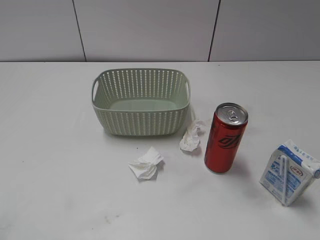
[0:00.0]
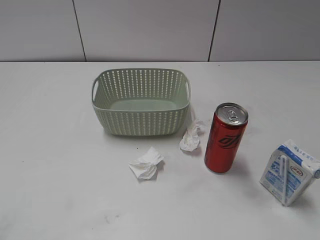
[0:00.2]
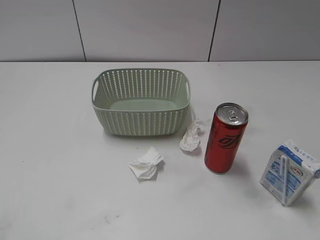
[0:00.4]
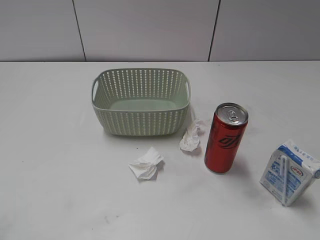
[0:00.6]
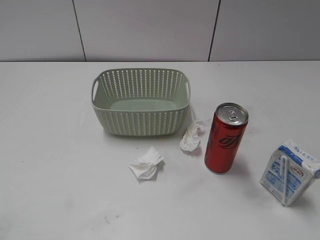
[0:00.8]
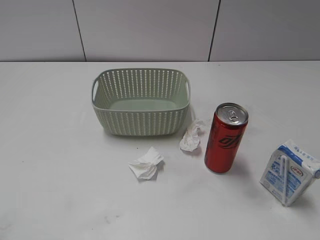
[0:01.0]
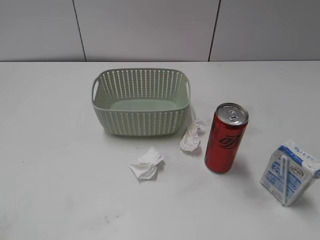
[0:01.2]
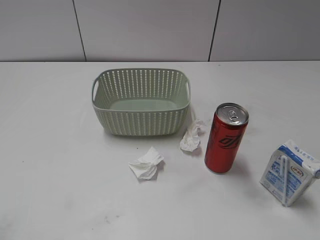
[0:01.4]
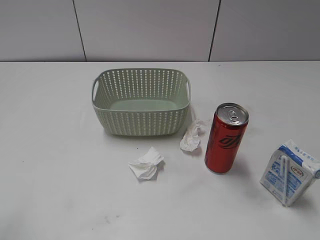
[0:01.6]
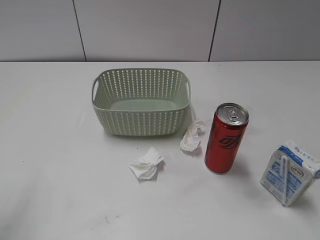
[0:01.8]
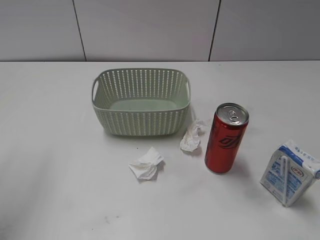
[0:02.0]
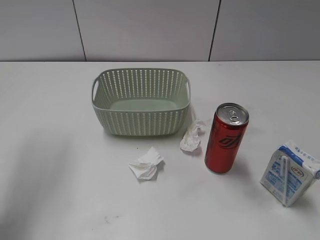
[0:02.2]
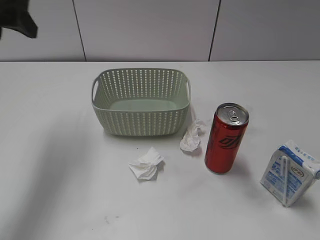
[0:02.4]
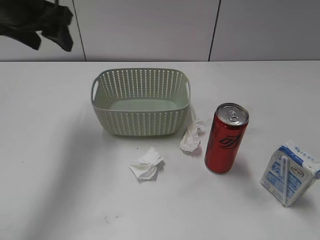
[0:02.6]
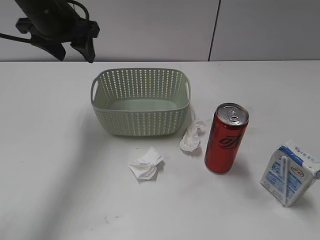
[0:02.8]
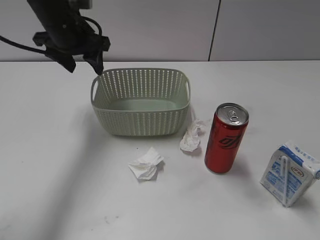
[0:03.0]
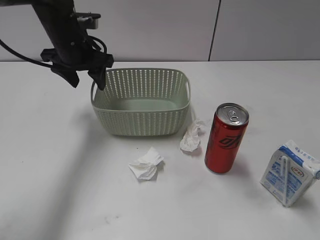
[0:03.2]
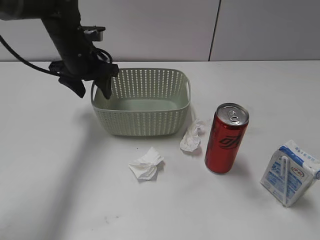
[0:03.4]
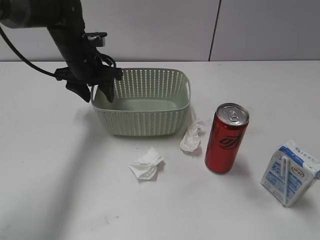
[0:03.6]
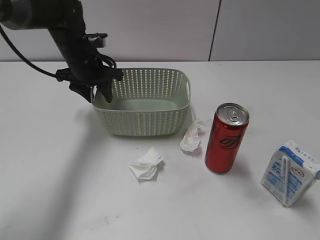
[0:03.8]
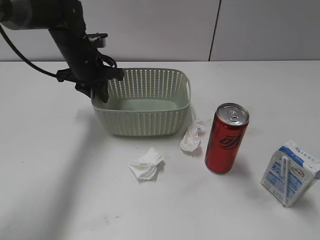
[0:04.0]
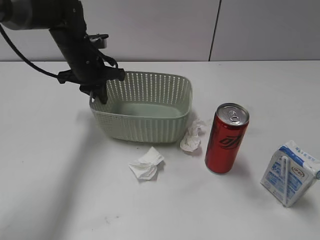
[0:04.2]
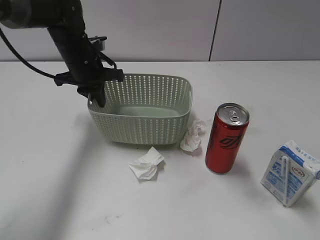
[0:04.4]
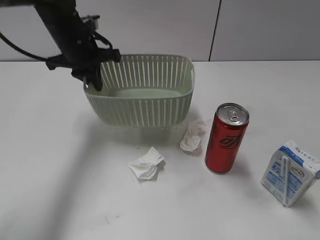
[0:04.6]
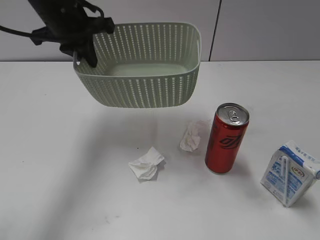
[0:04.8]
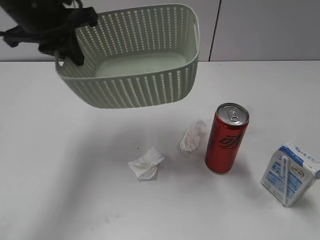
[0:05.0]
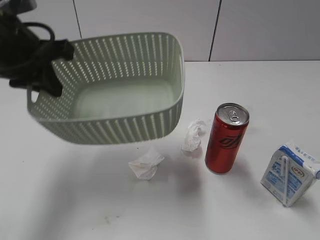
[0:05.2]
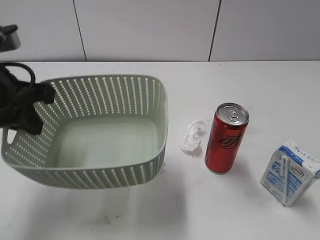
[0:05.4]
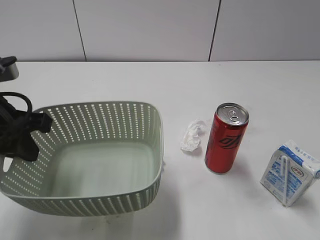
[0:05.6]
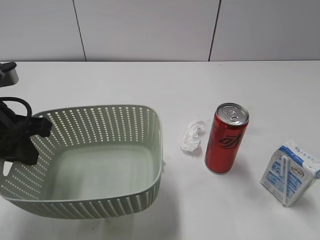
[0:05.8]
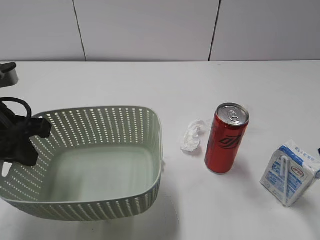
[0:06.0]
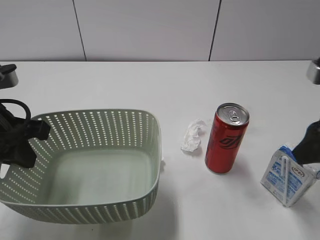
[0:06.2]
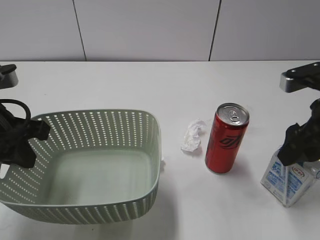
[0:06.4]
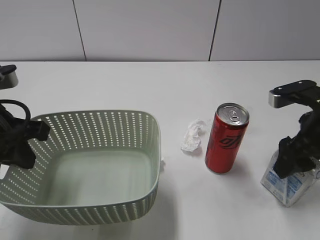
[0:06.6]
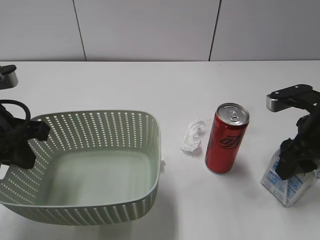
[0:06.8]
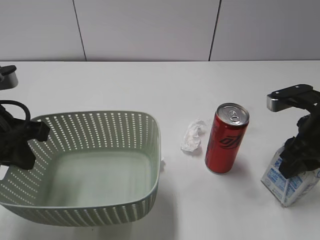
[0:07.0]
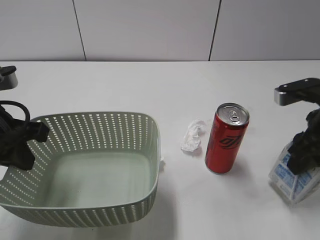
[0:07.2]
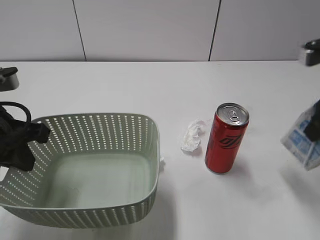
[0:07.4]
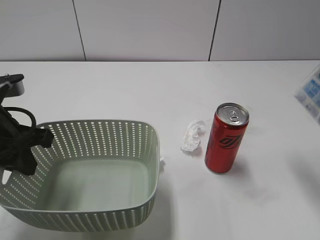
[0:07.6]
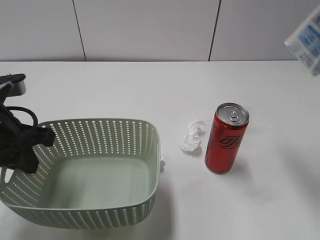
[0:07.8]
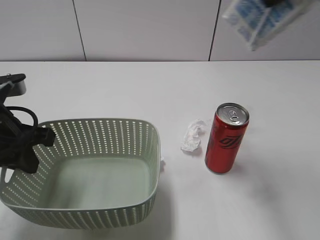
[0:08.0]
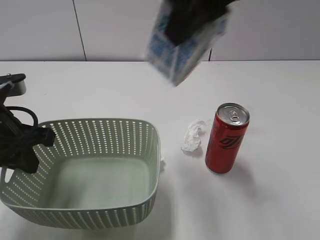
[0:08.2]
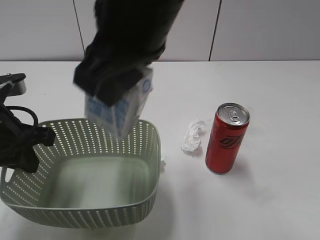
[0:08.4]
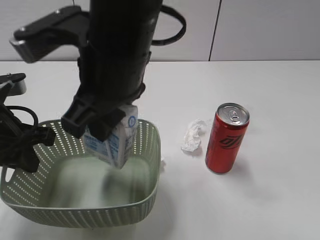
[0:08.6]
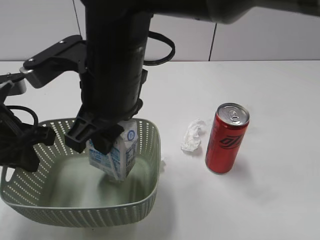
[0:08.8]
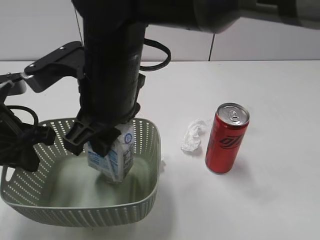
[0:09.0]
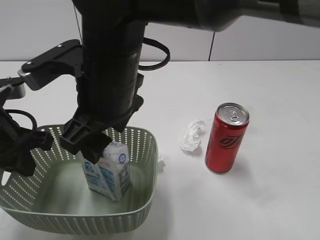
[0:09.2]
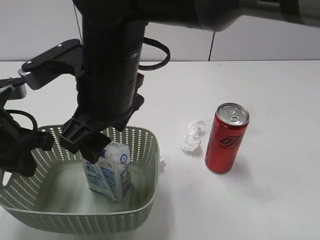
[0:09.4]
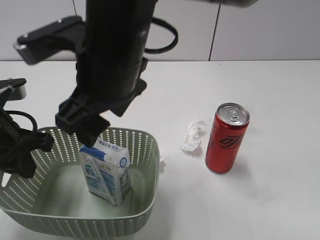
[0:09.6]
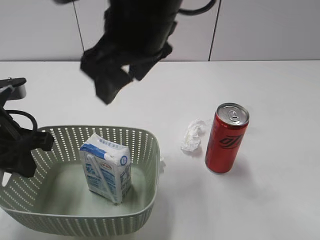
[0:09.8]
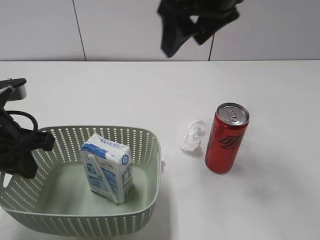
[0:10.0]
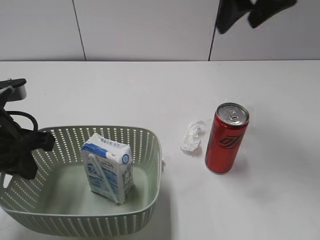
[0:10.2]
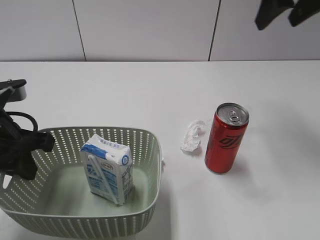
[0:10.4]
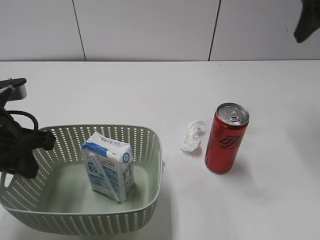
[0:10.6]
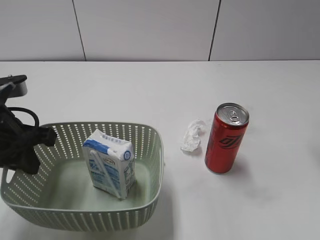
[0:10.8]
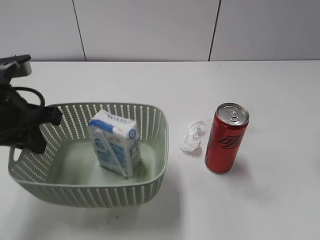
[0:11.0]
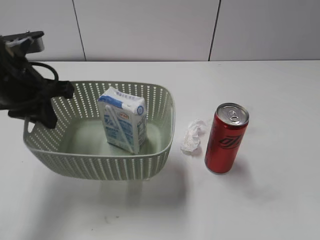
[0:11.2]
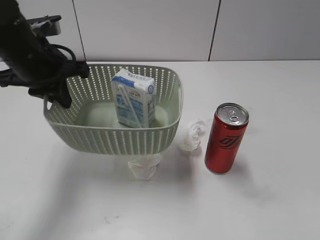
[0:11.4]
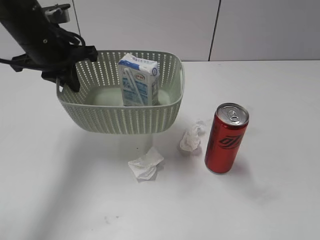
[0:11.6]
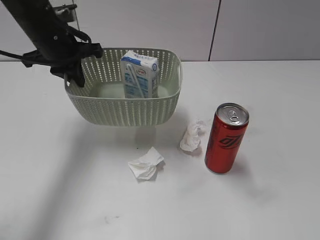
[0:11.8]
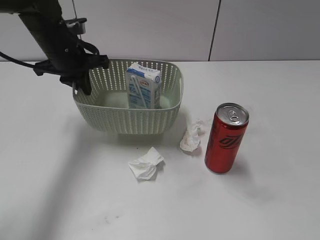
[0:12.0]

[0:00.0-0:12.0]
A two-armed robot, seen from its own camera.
Step, 0:02.4 to 0:04.0: Grasp the basket with left gripper.
Step, 0:04.2 to 0:05.8: Lift the basket with left gripper.
Step, 0:06.0 to 0:06.8: Grasp the milk with right gripper.
Step, 0:07.0 to 0:09.6: Place the milk in the basket with right gripper.
0:01.6 to 0:03.0: The left gripper moves forward, to the right and downward, some 35 cm.
0:03.0 to 0:04.4: The left gripper is displaced downward by about 5 cm, and closes.
0:04.4 to 0:06.0: The left gripper shifts roughly 20 cm backward. The right gripper moves forward, some 15 cm.
0:06.0 to 0:07.6: The right gripper is displaced upward and forward by roughly 10 cm, and closes.
0:07.6 to 0:09.0: The right gripper is displaced to the left by about 30 cm.
0:09.0 to 0:10.4: The right gripper goes approximately 30 cm to the right and forward, and opens its fingers.
0:10.4 to 0:12.0: The right gripper is displaced backward by about 35 cm. Meanwhile the left gripper shifts approximately 20 cm forward.

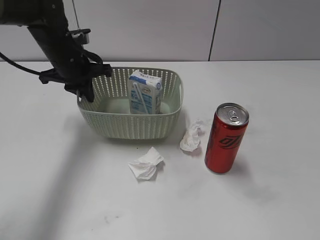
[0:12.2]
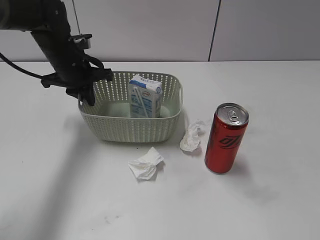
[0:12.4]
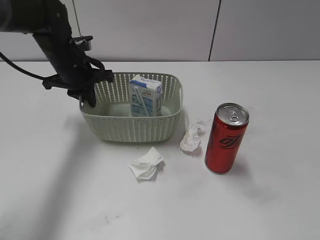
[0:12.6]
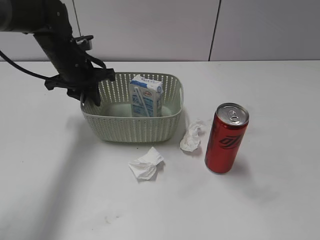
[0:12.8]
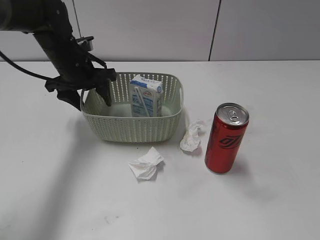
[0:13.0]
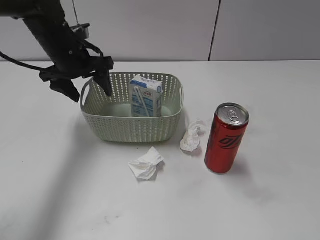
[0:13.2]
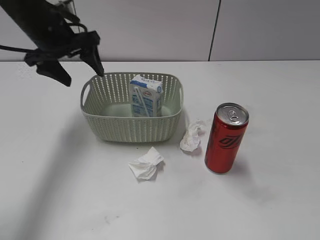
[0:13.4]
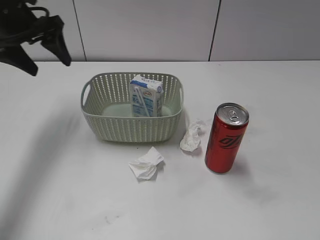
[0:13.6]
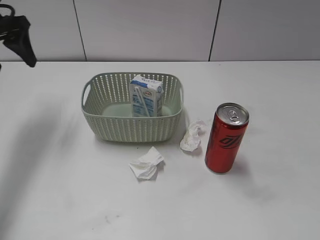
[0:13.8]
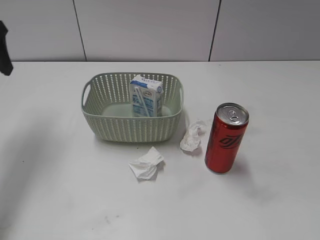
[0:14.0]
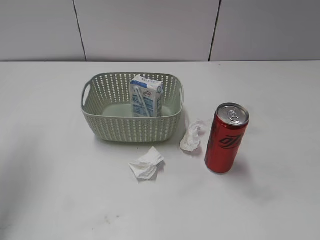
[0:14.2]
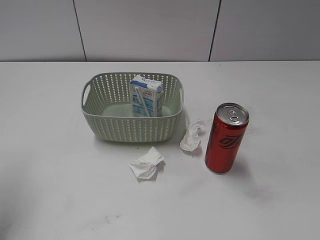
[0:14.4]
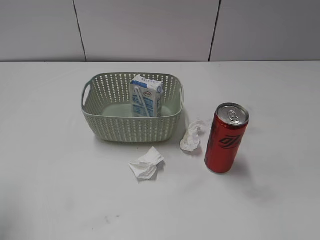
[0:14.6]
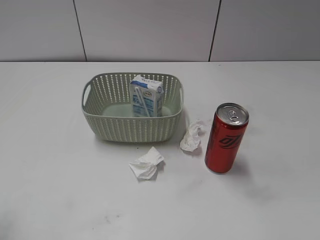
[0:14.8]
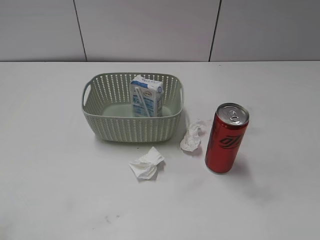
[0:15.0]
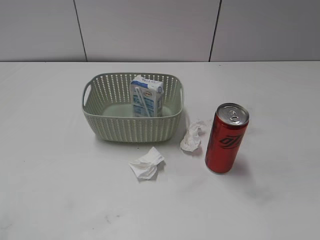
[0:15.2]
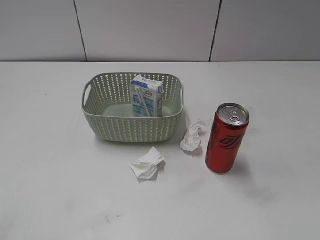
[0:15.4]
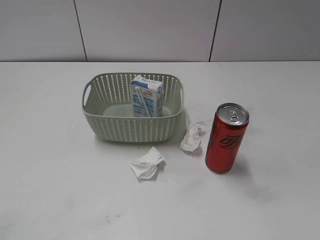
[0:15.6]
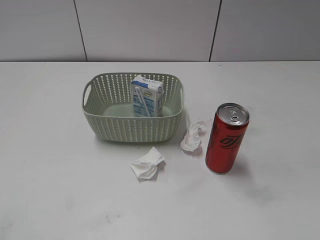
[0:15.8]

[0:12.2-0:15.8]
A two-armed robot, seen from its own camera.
0:12.2 to 0:14.0: The left gripper heads to the left, upward and backward, covering approximately 20 cm, and opens.
0:14.0 to 0:15.8: The left gripper goes approximately 35 cm backward.

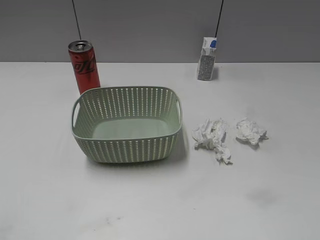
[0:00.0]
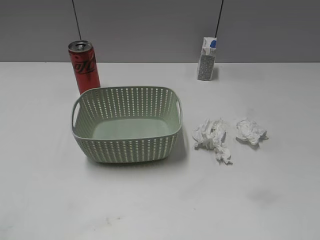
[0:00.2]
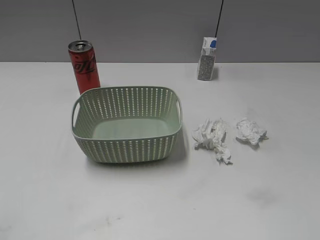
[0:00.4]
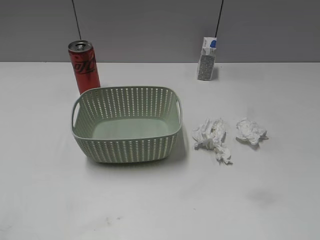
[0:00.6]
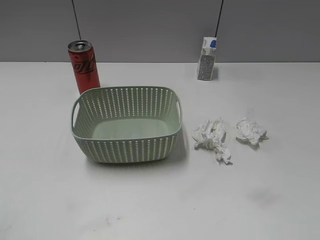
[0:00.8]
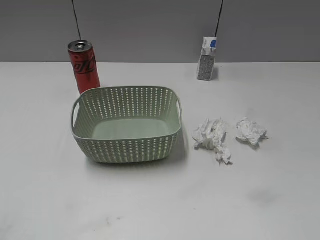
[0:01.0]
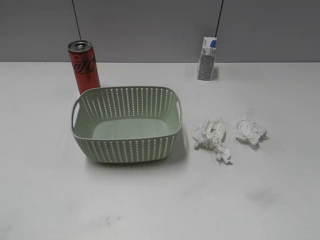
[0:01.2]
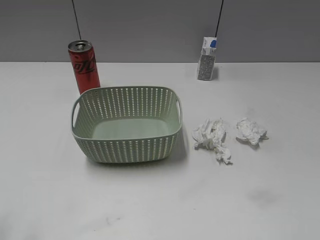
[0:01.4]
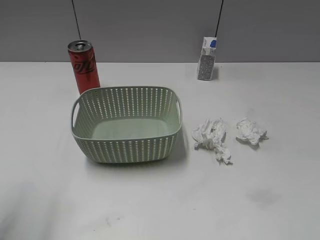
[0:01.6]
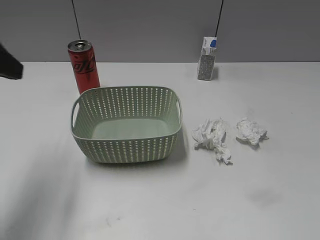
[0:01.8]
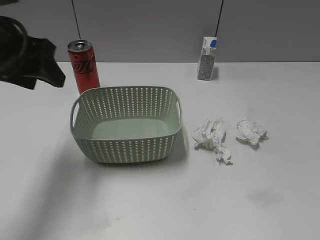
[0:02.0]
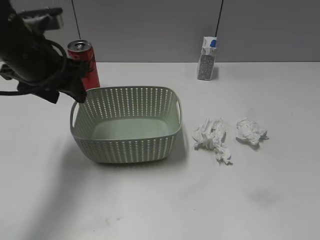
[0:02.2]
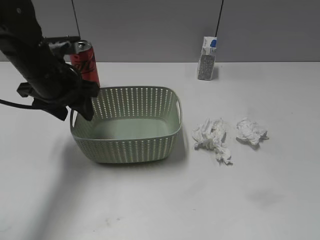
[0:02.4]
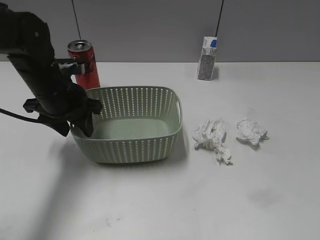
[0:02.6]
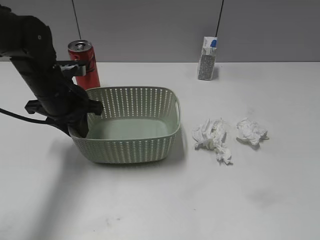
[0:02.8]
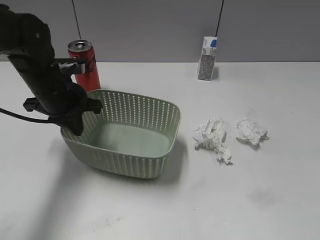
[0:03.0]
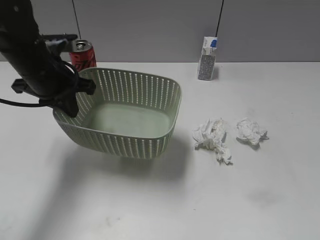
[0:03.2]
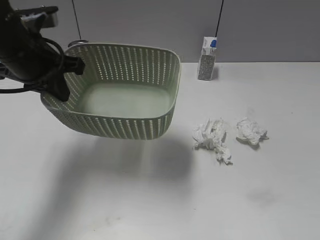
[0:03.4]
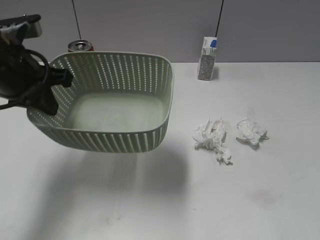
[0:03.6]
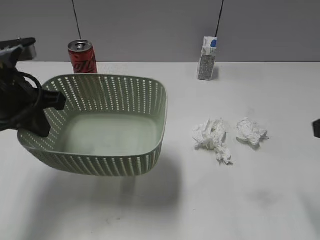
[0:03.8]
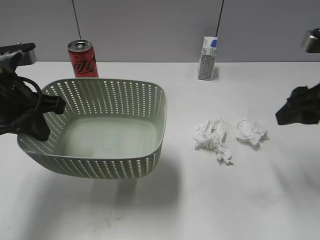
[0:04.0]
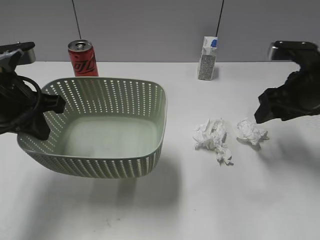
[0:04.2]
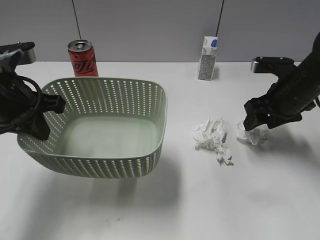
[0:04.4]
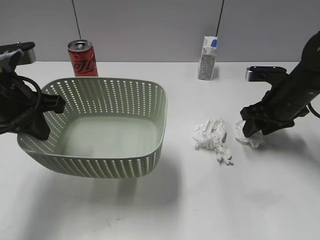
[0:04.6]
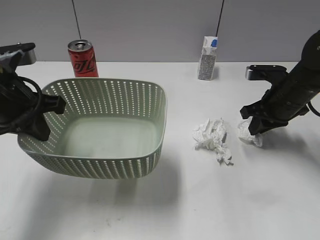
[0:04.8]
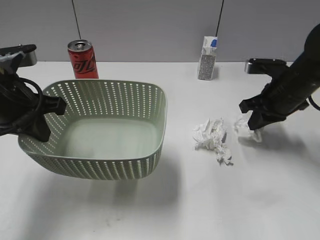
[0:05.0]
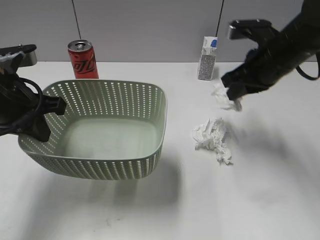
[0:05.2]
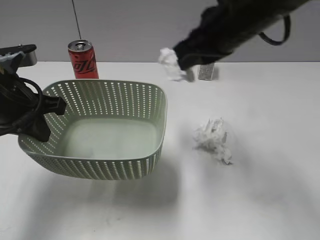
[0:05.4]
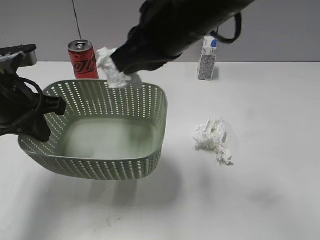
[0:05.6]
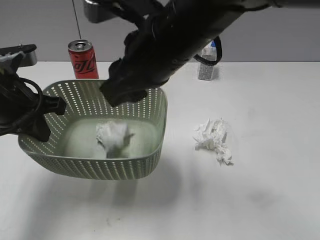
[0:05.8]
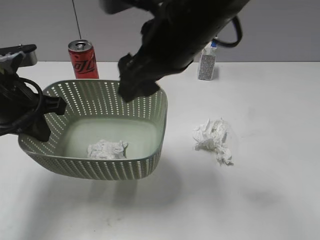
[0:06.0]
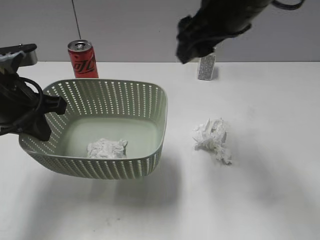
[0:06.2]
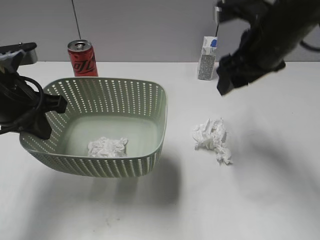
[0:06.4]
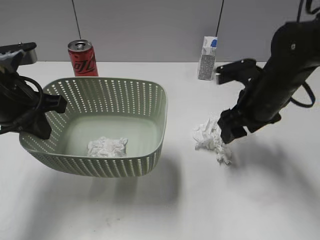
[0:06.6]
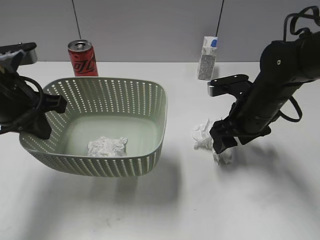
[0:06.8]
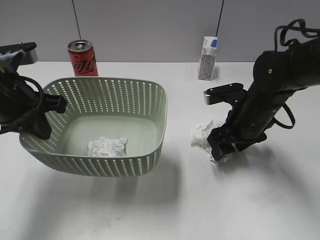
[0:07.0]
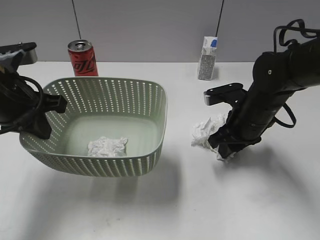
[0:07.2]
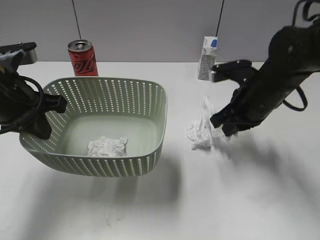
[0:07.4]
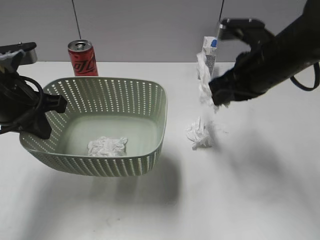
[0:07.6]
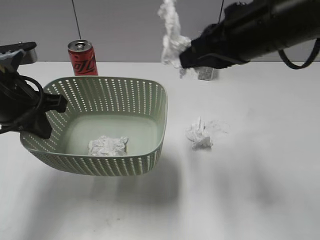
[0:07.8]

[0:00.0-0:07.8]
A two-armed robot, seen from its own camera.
Step, 0:01.2 to 0:02.8: Grasp the basket with left gripper.
Step, 0:03.0 to 0:03.4: Lift the basket with left gripper.
Step, 0:03.6 to 0:05.0: Grasp the waste paper with right gripper.
Step, 0:05.2 to 0:06.0: Place the waste paper in the basket with right gripper.
Step, 0:06.2 to 0:07.4: Grasp the waste paper with right gripper.
0:01.6 to 0:03.2: The left gripper shifts some 25 cm forward, downward and to the right, and closes.
0:03.2 to 0:04.6: The right gripper is displaced forward and downward by about 40 cm. Meanwhile the left gripper heads backward, covering about 10 cm.
0:04.6 to 0:06.2: The right gripper is displaced upward and to the left by roughly 25 cm, and closes, then reopens.
0:06.2 to 0:07.8: The right gripper moves some 20 cm downward and comes back, and closes up.
